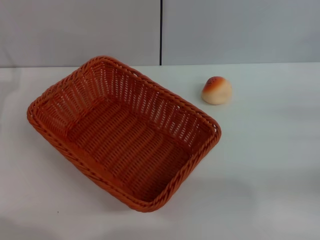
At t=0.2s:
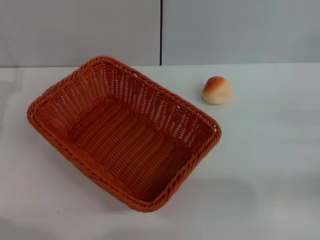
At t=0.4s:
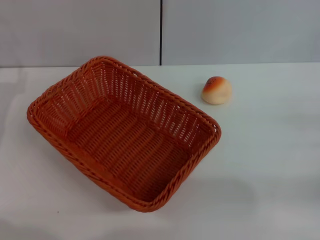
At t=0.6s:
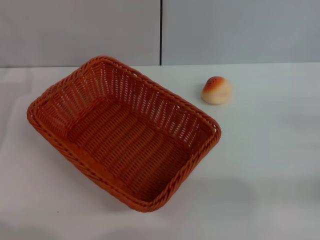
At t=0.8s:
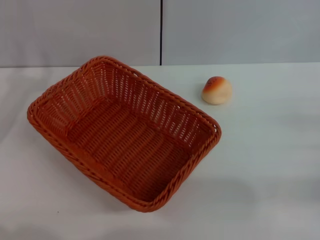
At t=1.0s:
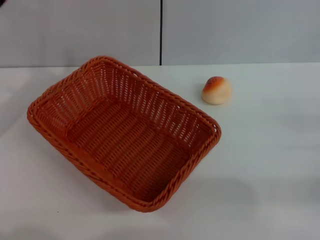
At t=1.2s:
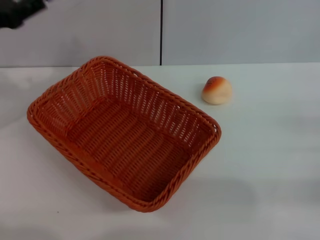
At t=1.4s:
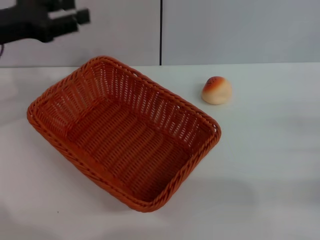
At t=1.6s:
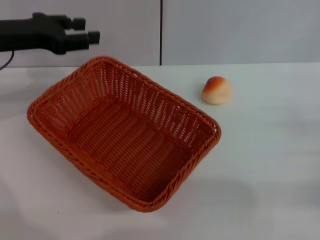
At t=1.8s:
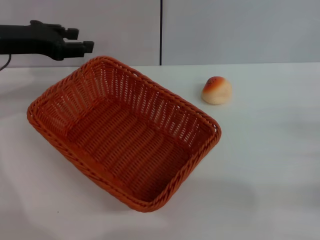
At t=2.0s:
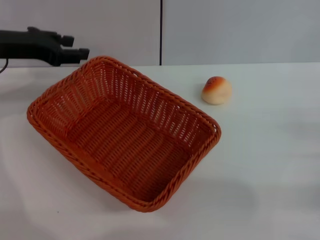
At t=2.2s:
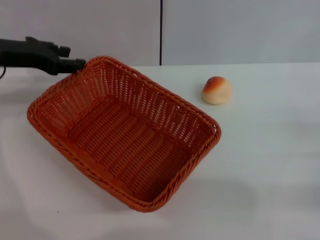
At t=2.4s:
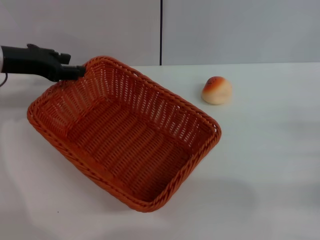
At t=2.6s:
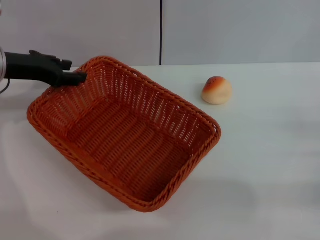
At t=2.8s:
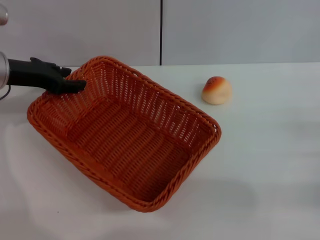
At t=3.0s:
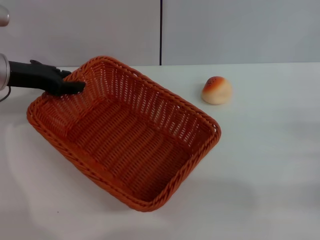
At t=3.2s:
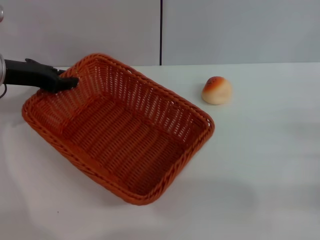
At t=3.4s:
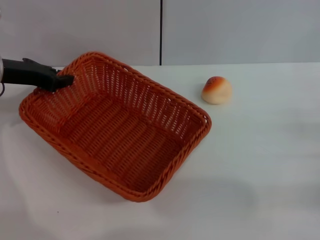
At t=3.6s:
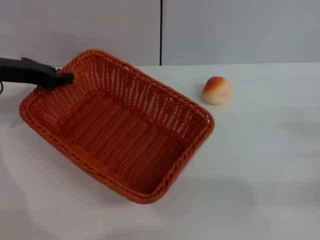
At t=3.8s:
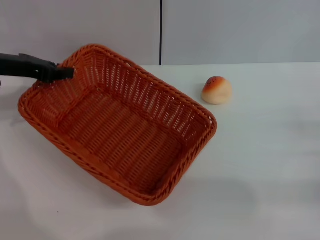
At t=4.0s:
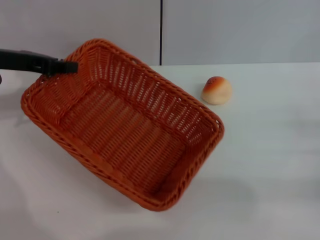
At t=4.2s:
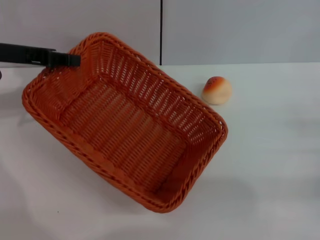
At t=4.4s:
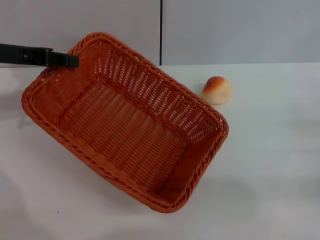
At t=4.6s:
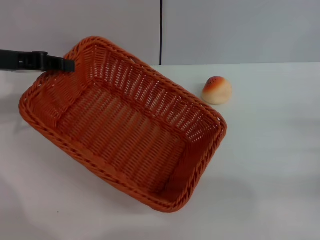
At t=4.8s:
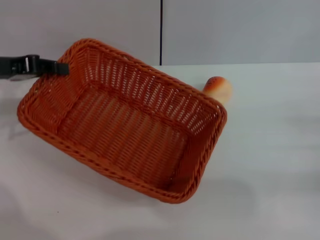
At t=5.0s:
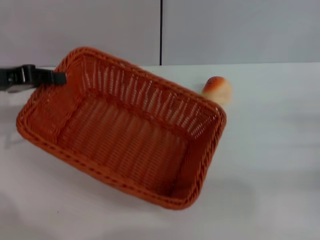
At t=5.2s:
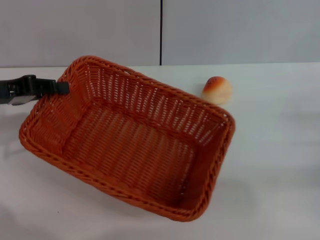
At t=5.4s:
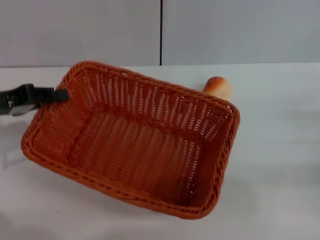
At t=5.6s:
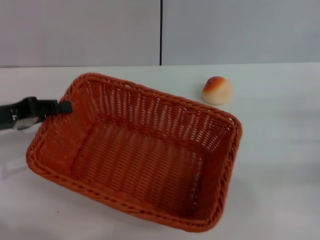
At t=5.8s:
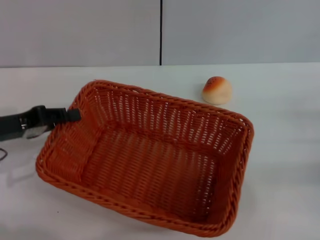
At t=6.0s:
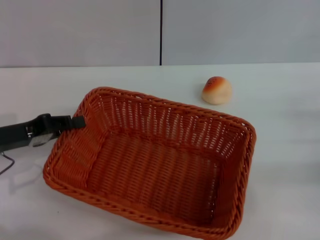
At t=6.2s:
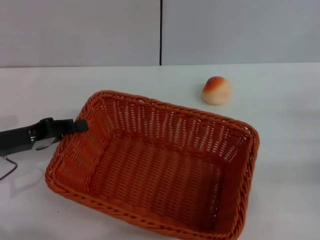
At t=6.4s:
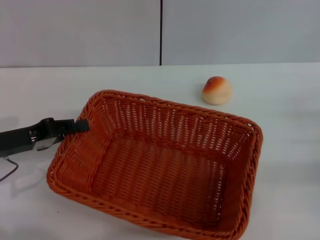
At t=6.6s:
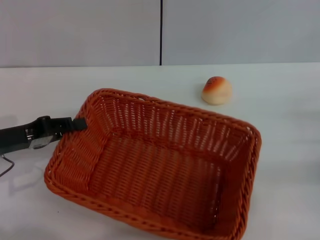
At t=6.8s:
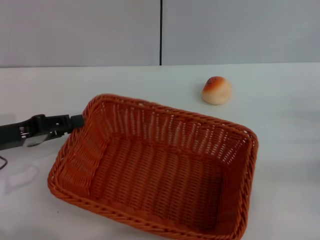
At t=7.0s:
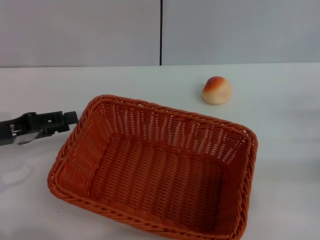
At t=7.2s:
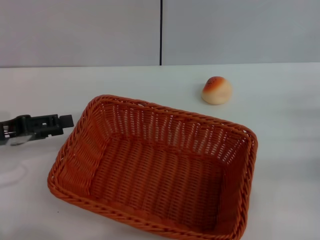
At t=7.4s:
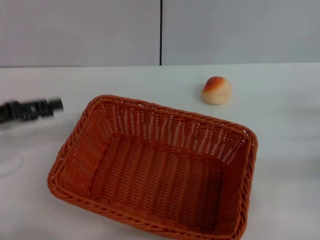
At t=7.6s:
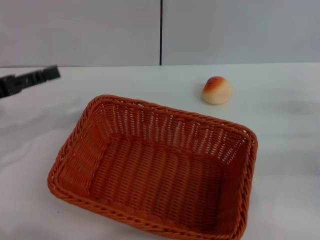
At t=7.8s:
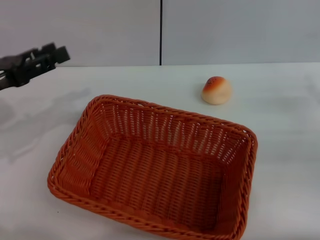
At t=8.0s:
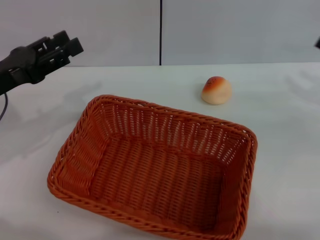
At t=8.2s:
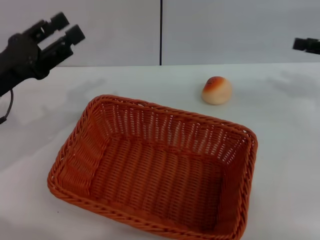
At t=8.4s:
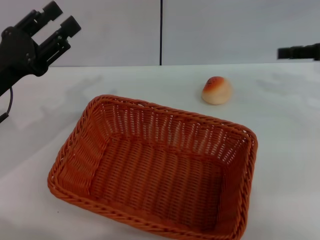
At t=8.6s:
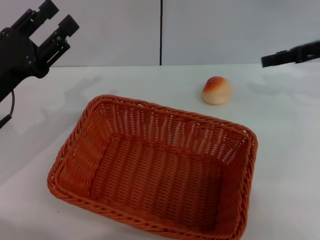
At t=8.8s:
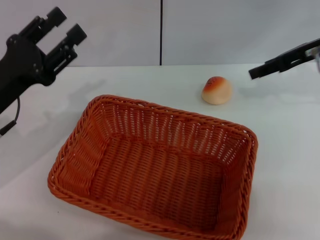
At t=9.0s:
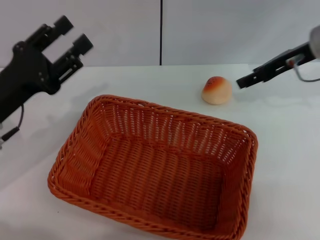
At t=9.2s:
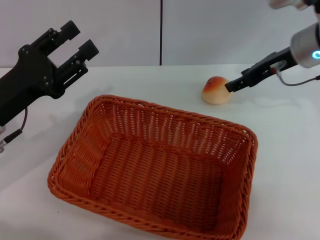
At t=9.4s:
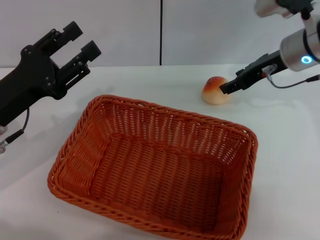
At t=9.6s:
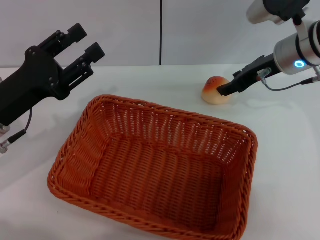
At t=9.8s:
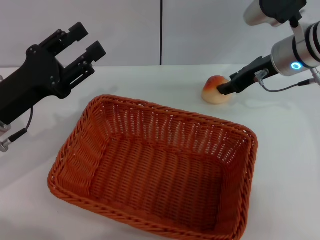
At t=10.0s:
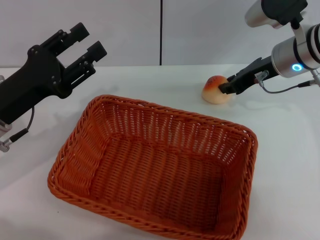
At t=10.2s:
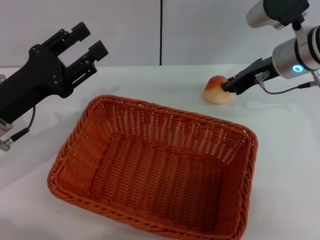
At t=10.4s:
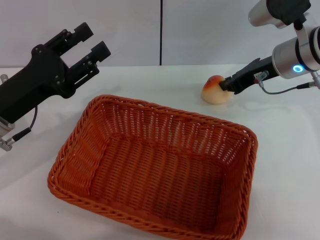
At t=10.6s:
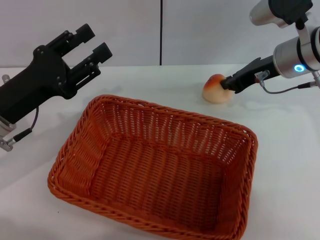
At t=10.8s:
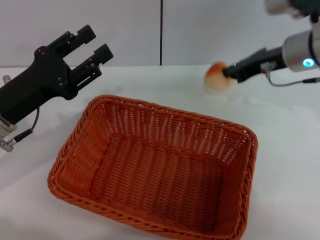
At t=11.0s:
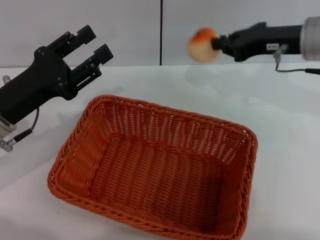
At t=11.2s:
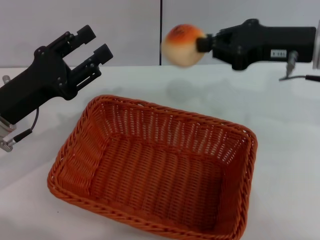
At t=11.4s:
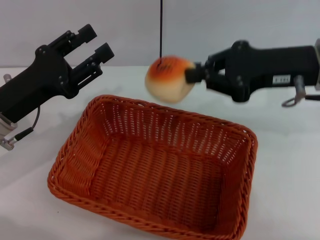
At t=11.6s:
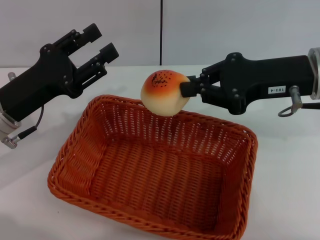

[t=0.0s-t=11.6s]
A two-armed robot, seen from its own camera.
Step, t=0.0s to t=7.6s: Move the basket to the center of view with the left gripper.
Step, t=7.8s to t=10.8s: Pick up the egg yolk pastry with the right gripper.
t=0.0s to t=1.4s: The left gripper shifts some 15 cm upward and forward.
t=1.4s to t=2.8s: The left gripper moves about 5 cm.
t=2.8s to t=4.4s: The left gripper shifts by some 5 cm, and closes.
t=4.4s to t=5.8s: The left gripper shifts roughly 10 cm downward and backward.
t=5.8s to t=7.2s: The left gripper opens its fingers.
t=7.2s to t=8.8s: The right gripper travels forward, upward and to the left by about 25 cm. The left gripper is displaced to the right by roughly 5 cm.
t=8.8s to t=10.2s: The right gripper is displaced to the left by approximately 5 cm, and closes up.
t=10.2s to t=11.6s: The right gripper shifts some 10 cm backward and upward.

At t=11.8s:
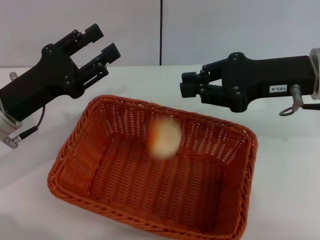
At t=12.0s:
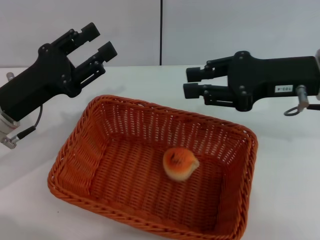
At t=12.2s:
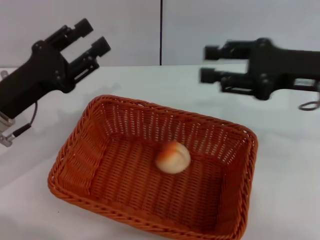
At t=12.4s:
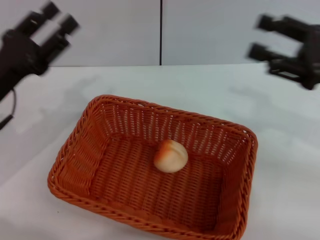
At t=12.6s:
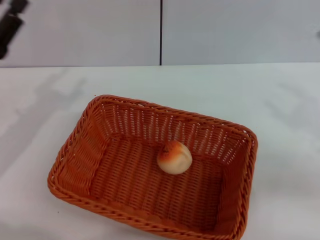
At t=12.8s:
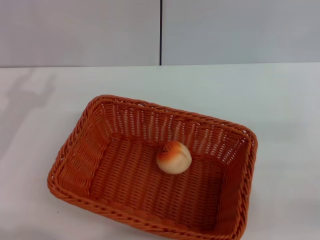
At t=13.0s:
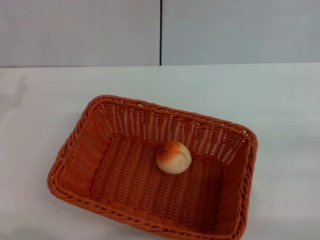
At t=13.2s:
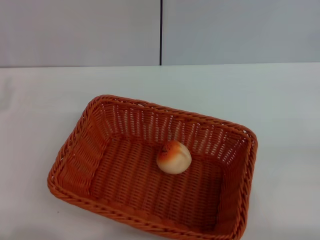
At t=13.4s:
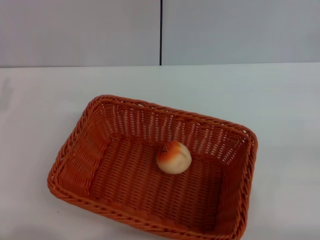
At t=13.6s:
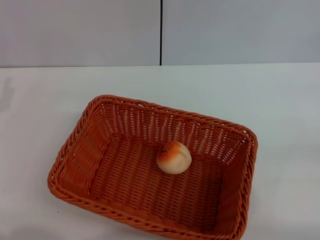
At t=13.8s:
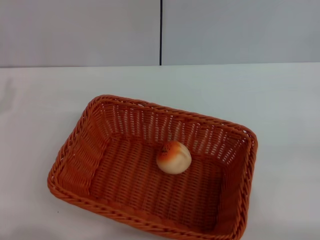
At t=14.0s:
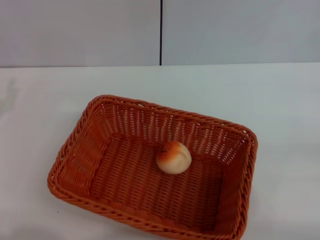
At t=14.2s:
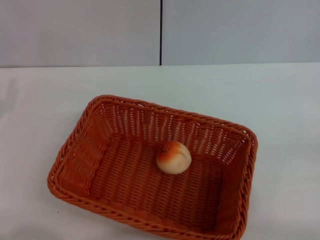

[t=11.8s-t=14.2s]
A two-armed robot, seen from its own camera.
t=11.8s to t=13.0s: The left gripper travels to the left by about 10 cm. Meanwhile the right gripper heads to the right, backward and downward, covering about 25 cm, and opens.
